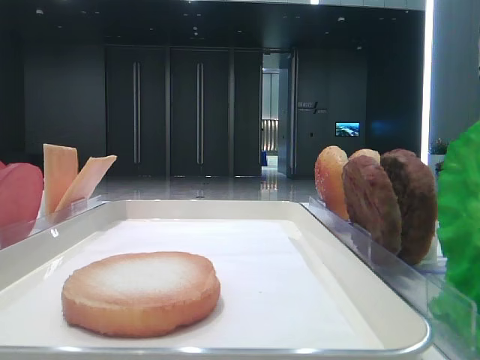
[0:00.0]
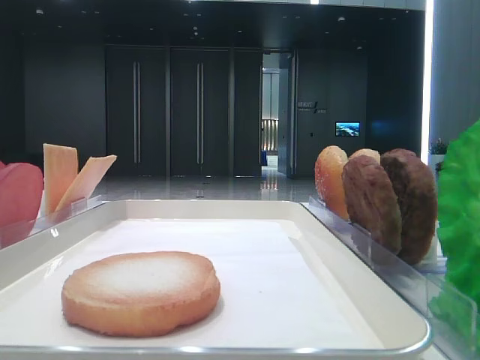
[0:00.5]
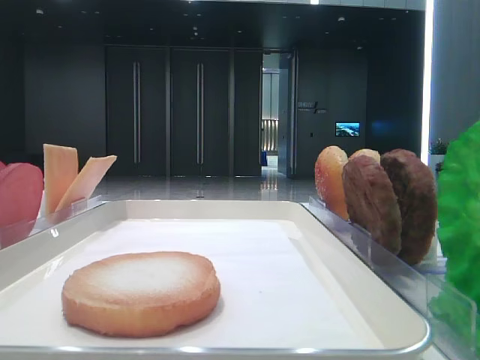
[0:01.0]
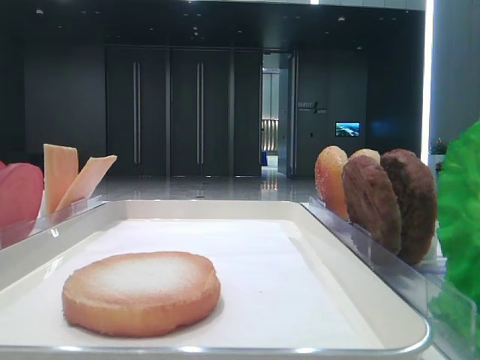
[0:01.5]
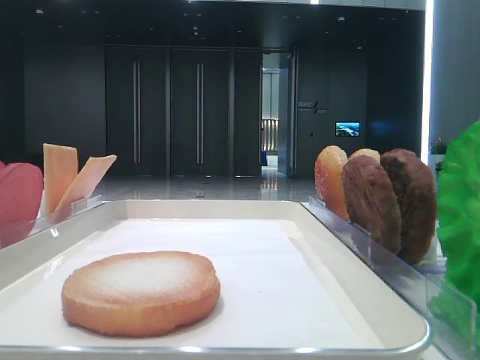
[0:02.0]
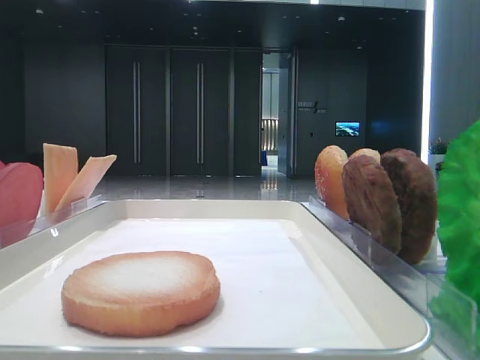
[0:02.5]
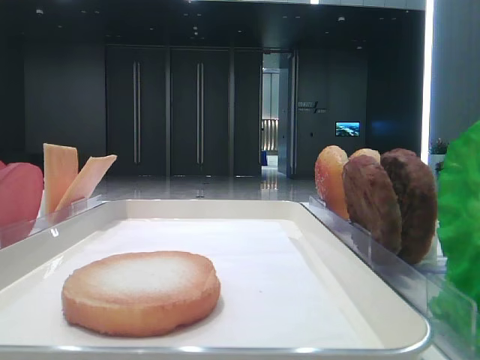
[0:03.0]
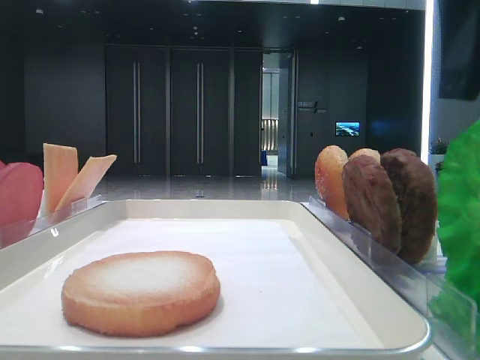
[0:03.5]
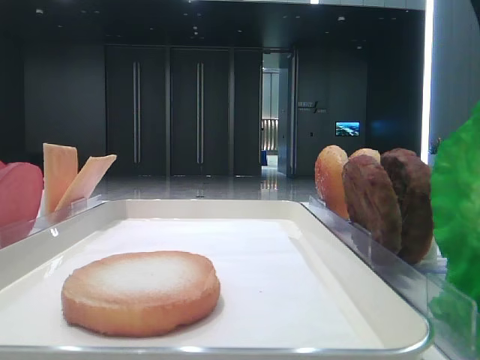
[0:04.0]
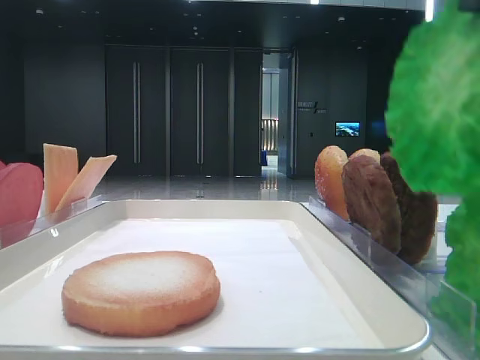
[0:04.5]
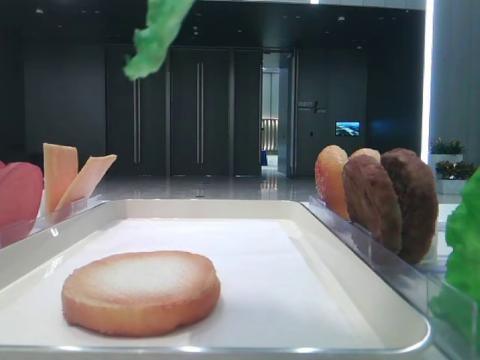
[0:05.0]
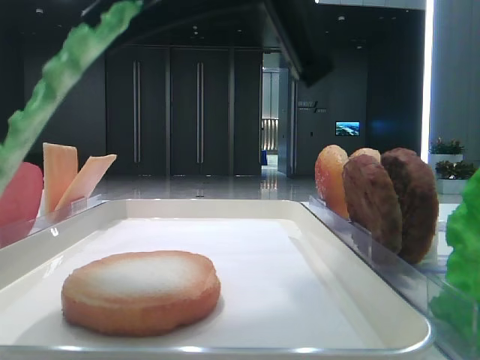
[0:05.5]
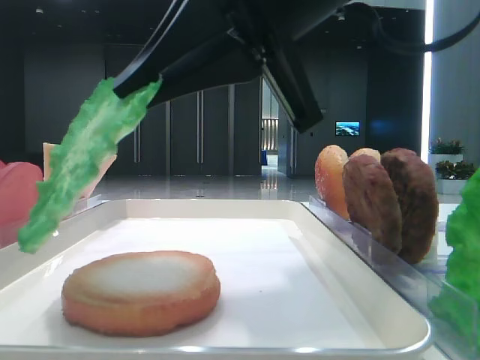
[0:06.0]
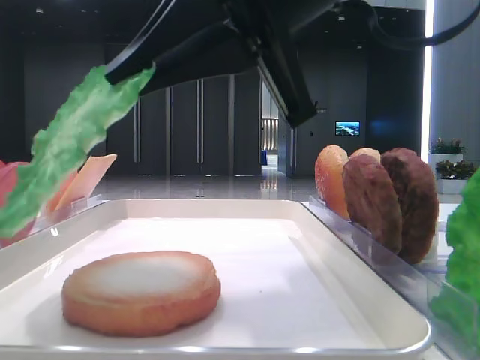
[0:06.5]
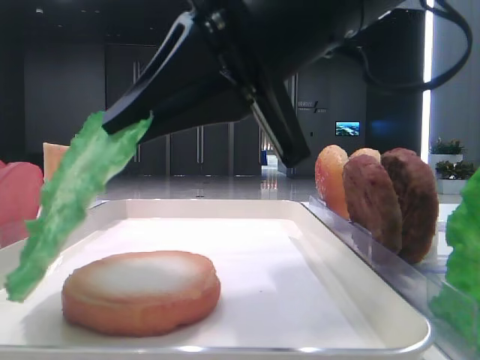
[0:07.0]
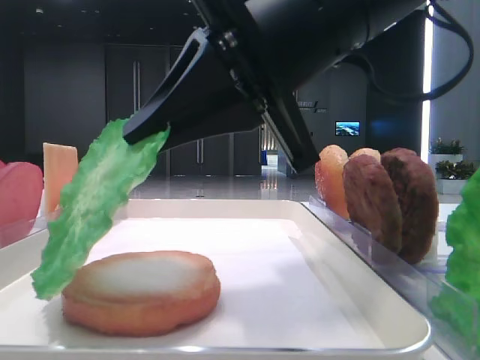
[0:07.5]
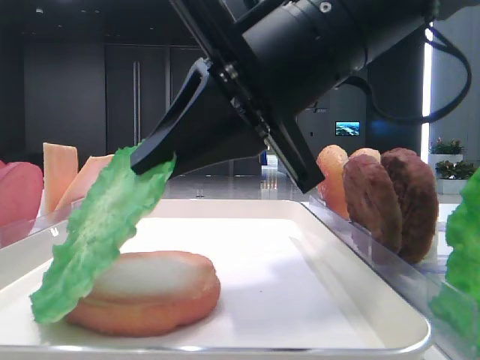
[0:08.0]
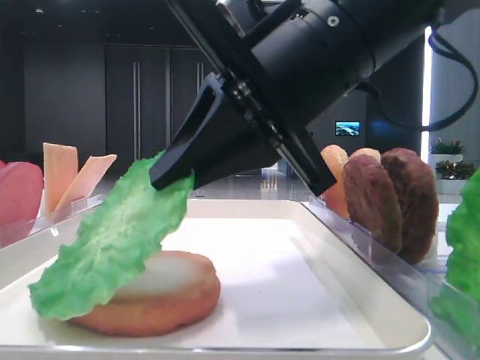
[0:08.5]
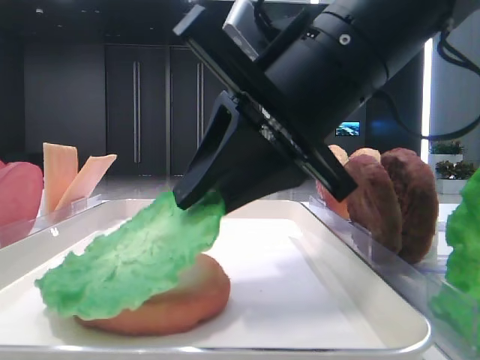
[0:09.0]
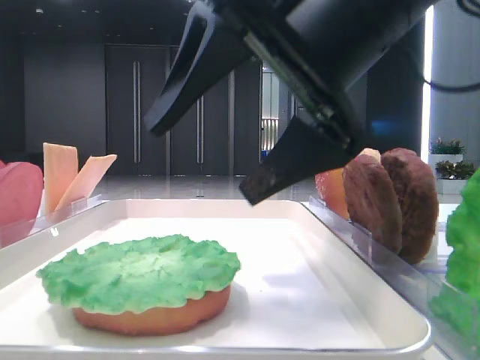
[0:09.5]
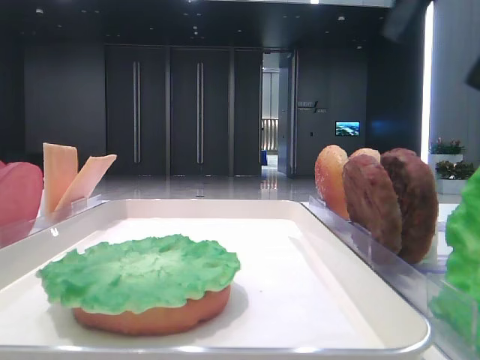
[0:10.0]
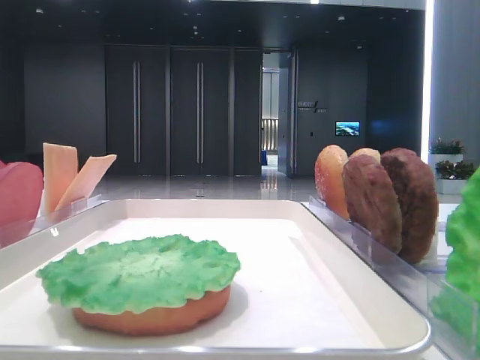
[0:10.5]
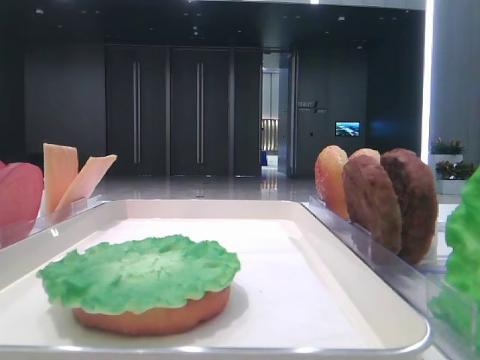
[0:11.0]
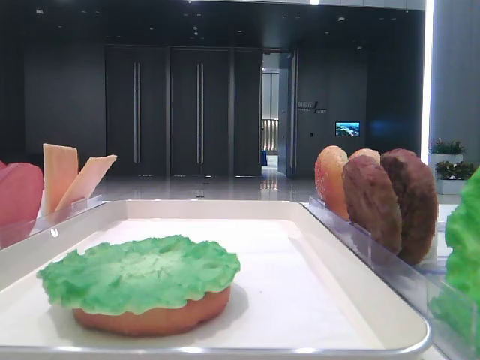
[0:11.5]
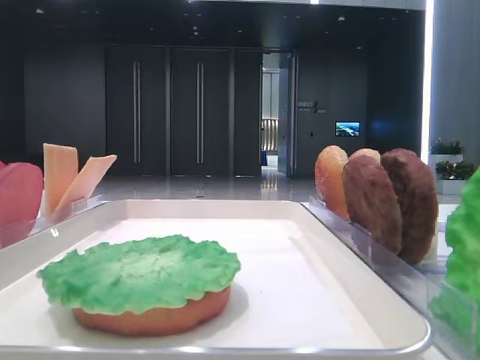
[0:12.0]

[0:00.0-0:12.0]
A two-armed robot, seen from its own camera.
Step, 0:00.0 to 0:03.5: Grab the lettuce leaf with the right hand.
Step, 0:04.5 to 0:09.0: Place the lettuce leaf on the bottom bread with the right hand.
0:04.0 to 0:06.0: The right gripper goes approximately 10 cm to the left and forward.
0:08.0 to 0:10.0: The right gripper heads to the right and upward, covering about 15 cm, and opens up.
0:10.0 to 0:12.0: The right gripper heads backward and to the right, covering about 25 cm.

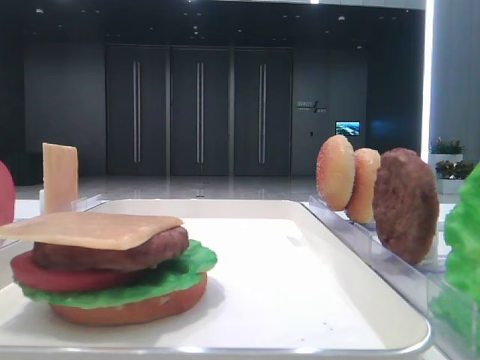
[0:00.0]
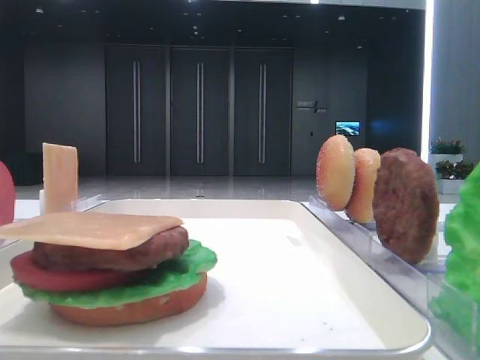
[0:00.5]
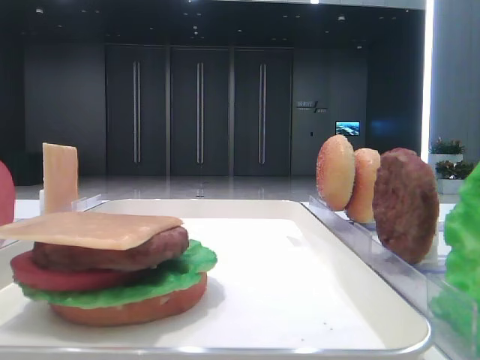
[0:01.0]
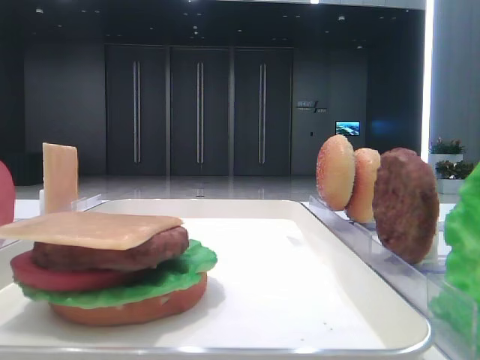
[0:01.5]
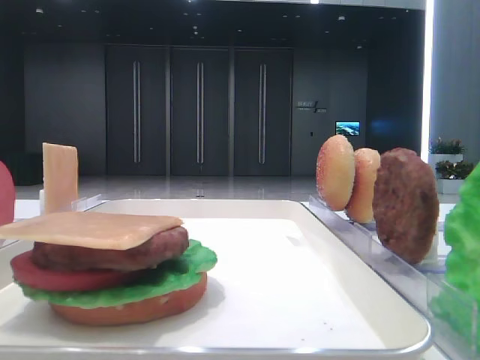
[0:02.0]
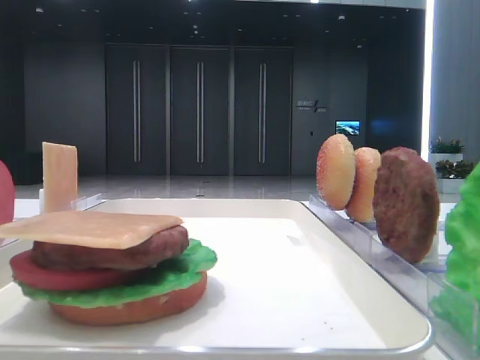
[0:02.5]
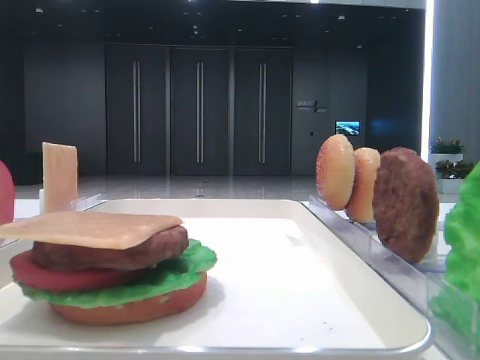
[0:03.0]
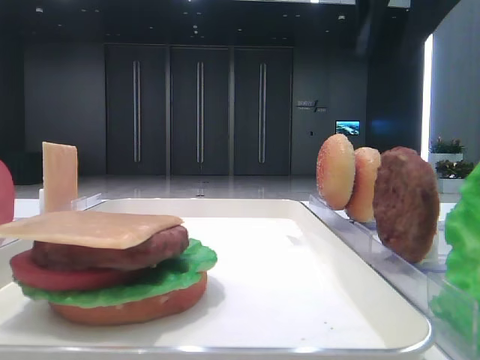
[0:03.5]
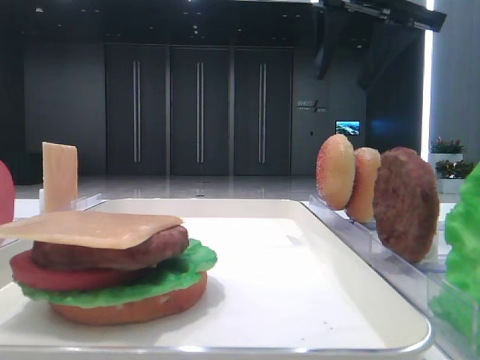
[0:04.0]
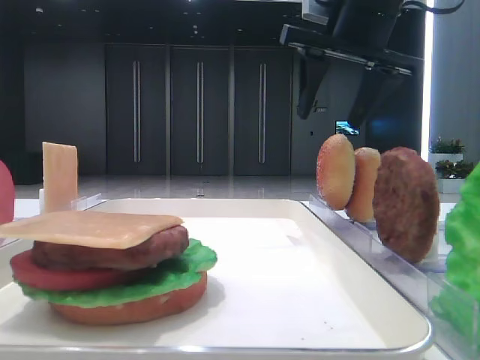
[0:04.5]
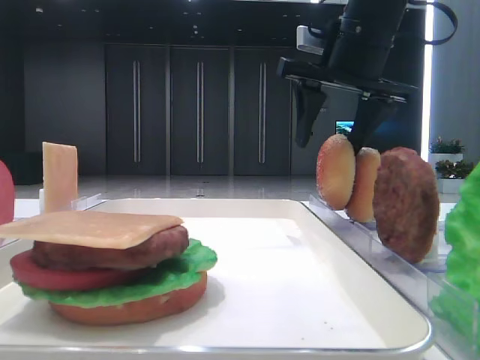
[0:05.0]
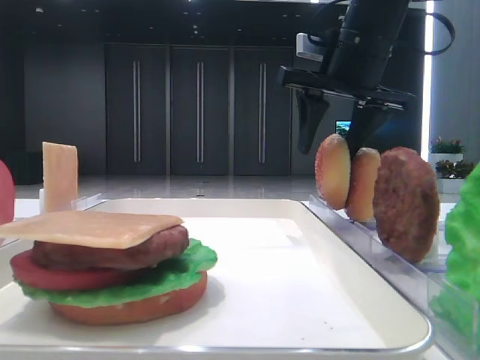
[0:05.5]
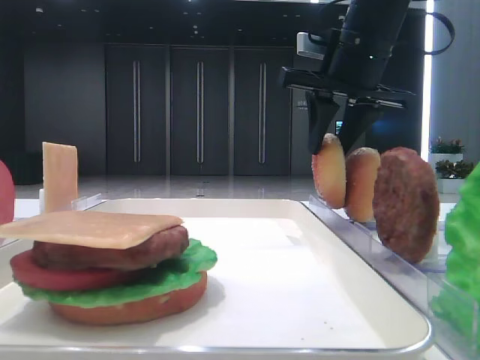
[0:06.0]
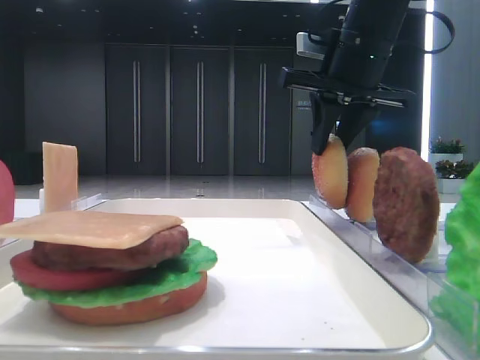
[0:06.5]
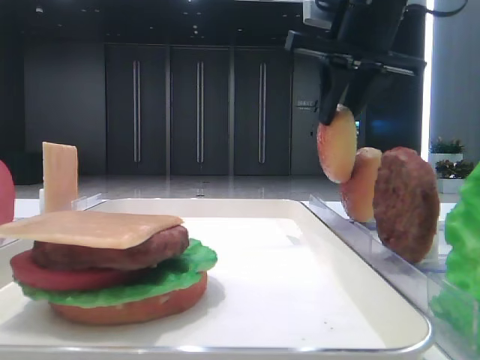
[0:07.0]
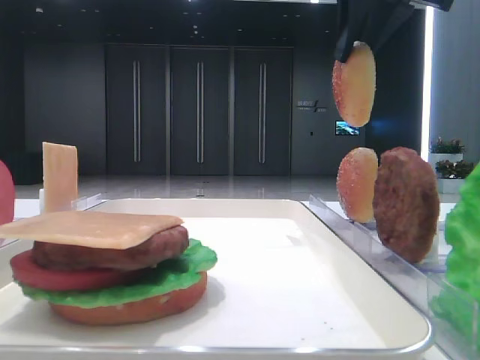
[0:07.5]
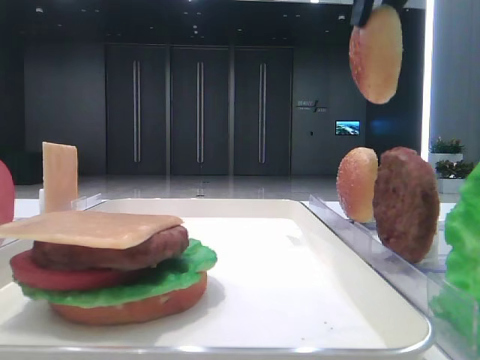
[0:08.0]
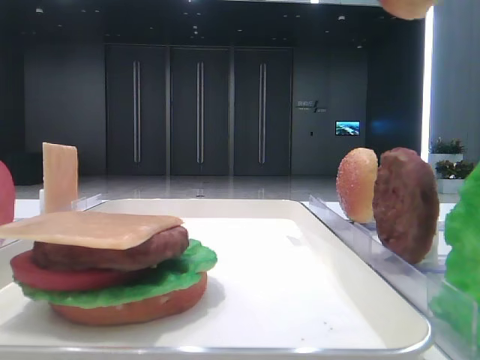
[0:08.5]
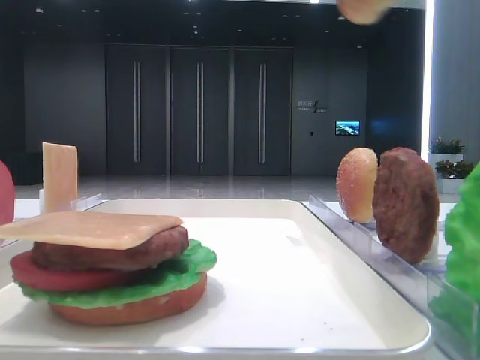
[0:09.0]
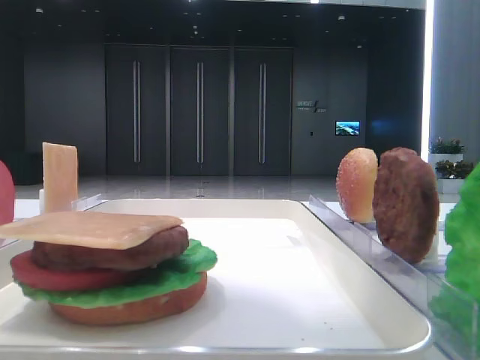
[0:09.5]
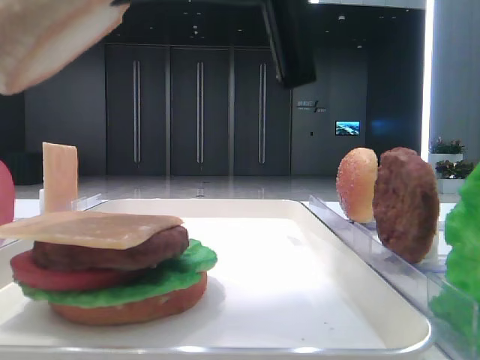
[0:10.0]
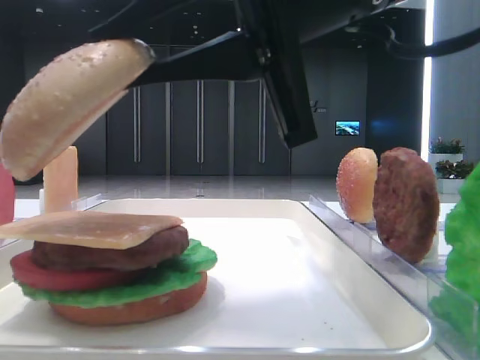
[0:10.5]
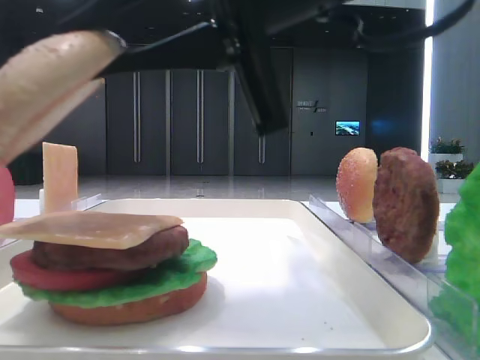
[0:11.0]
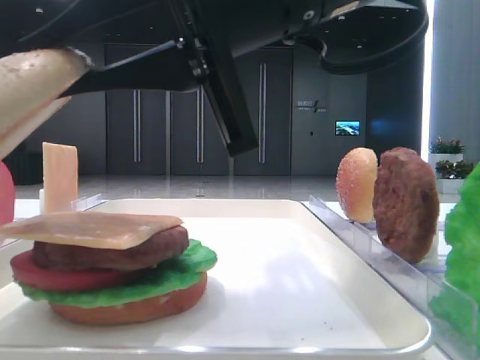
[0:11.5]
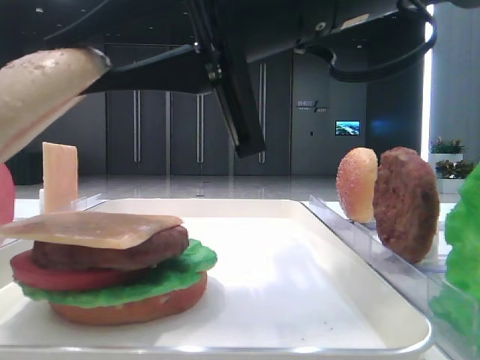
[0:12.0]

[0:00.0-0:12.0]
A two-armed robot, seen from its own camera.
Step, 0:00.0 to 0:06.5: Pick up the top bread slice with the right hand.
0:02.0 to 0:04.0: The right gripper moves forward and to the left, approximately 30 cm.
0:04.0 to 0:06.0: The right gripper is displaced downward by roughly 10 cm.
0:06.0 to 0:08.0: The right gripper goes some 15 cm upward and backward.
0:08.0 to 0:10.0: The right gripper is displaced backward, downward and to the left by roughly 20 cm.
0:10.0 to 0:12.0: The right gripper shifts by roughly 5 cm.

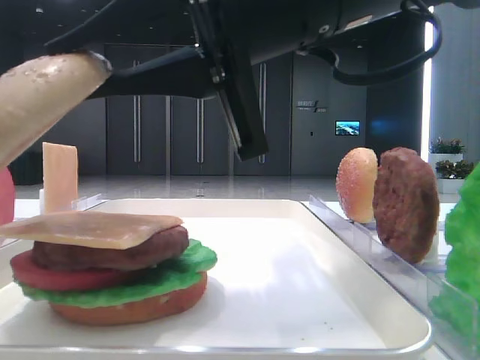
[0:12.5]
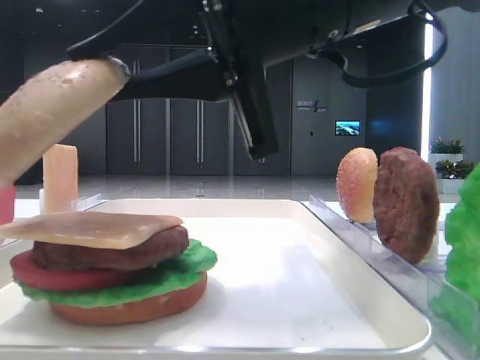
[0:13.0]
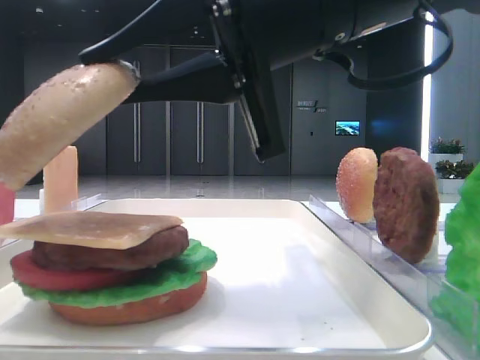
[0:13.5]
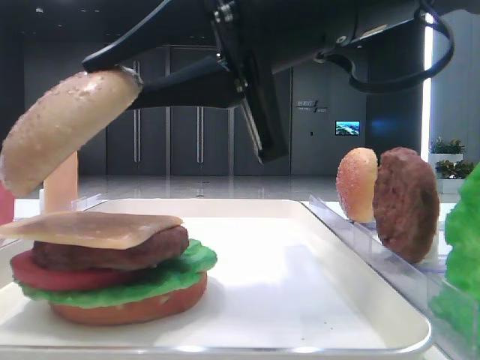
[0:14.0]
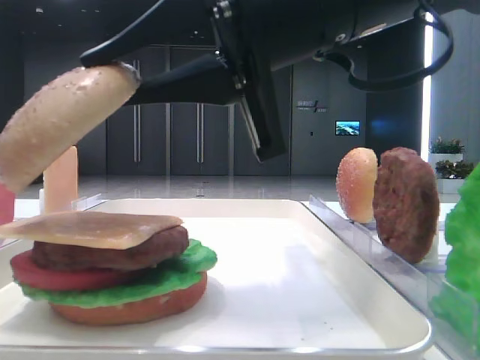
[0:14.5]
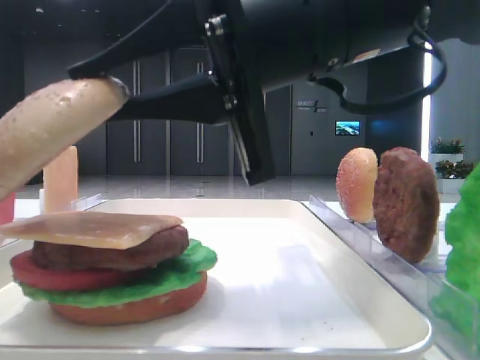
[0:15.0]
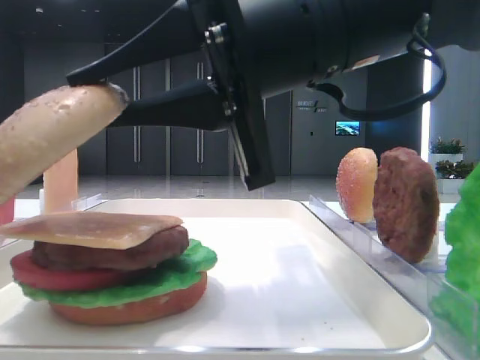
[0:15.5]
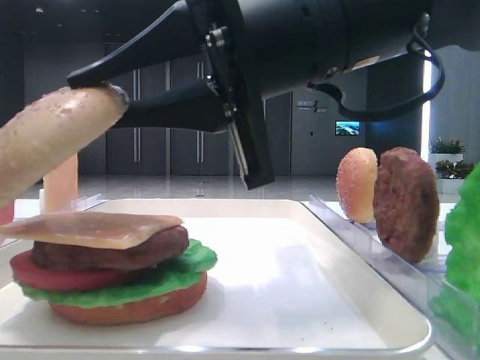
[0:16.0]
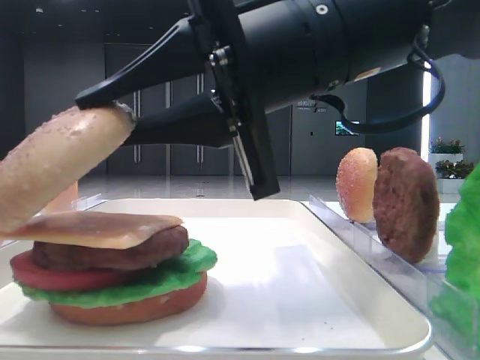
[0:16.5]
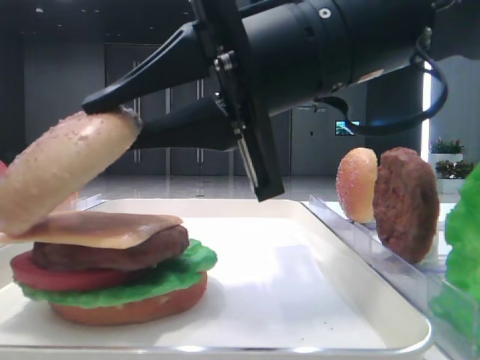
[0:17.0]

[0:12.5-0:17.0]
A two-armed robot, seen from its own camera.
0:12.5 to 0:14.5: The grippers move only a little.
